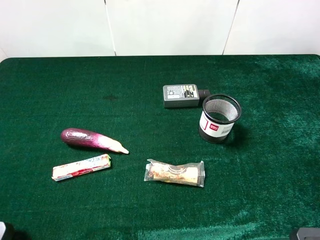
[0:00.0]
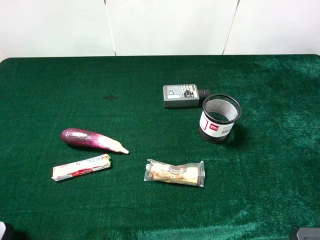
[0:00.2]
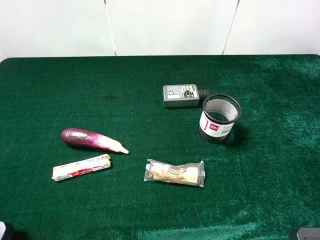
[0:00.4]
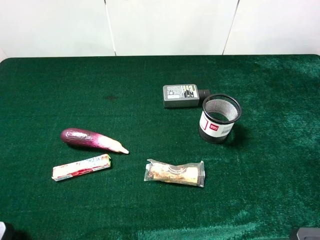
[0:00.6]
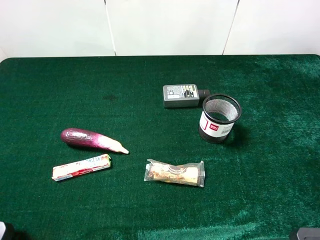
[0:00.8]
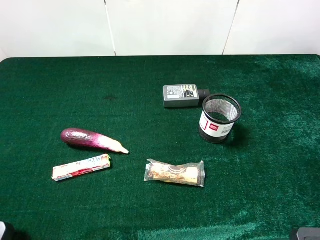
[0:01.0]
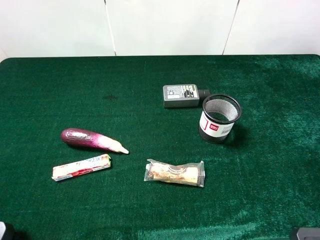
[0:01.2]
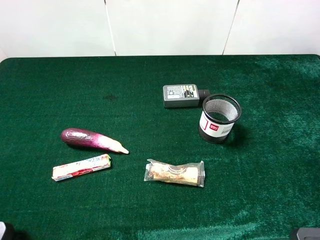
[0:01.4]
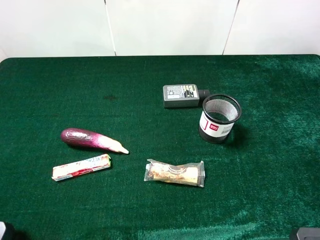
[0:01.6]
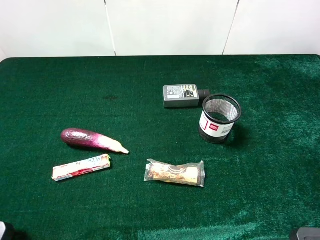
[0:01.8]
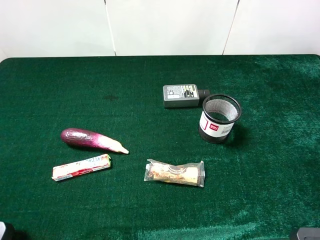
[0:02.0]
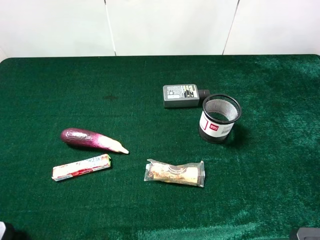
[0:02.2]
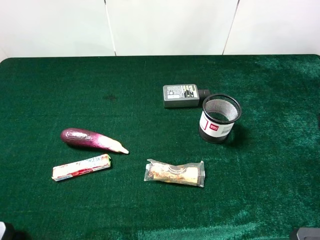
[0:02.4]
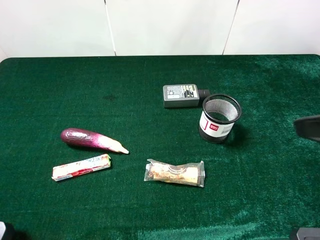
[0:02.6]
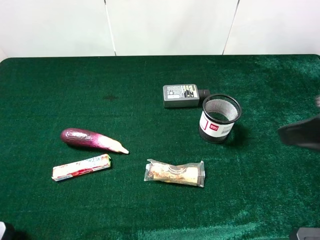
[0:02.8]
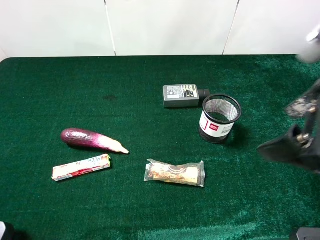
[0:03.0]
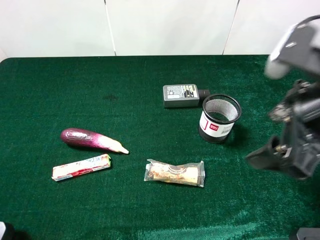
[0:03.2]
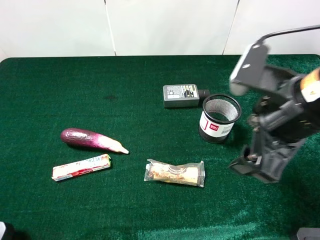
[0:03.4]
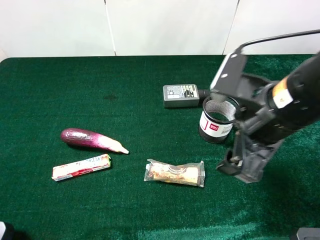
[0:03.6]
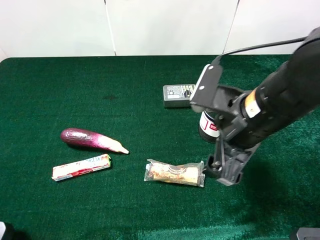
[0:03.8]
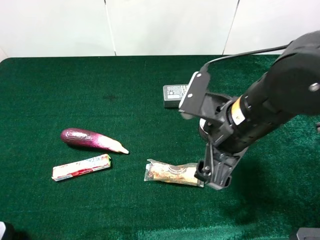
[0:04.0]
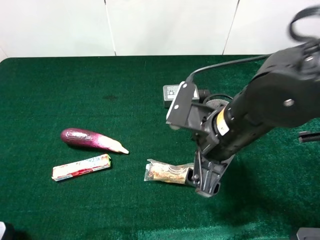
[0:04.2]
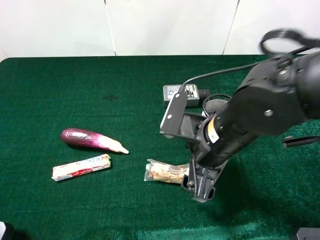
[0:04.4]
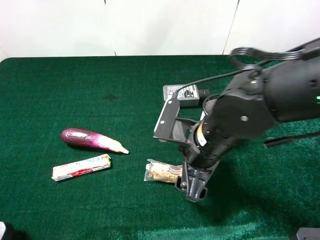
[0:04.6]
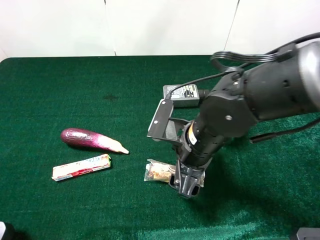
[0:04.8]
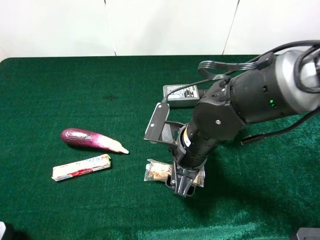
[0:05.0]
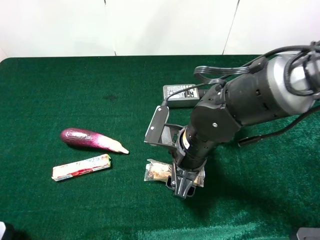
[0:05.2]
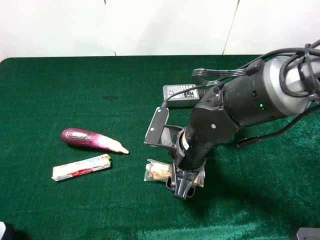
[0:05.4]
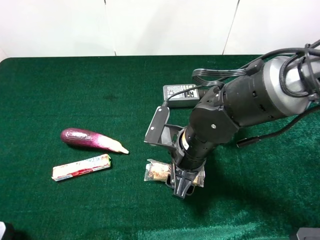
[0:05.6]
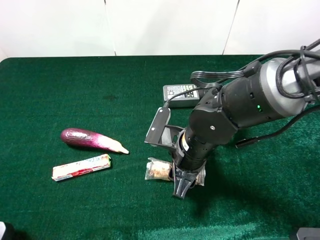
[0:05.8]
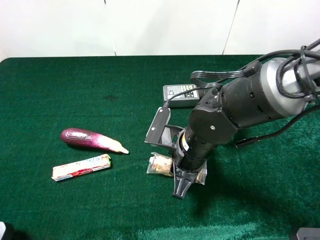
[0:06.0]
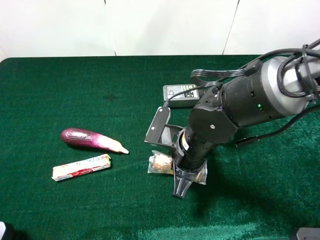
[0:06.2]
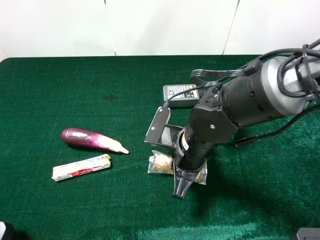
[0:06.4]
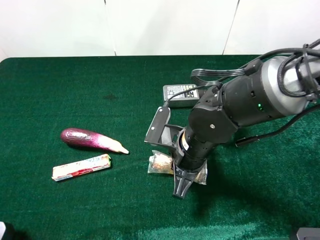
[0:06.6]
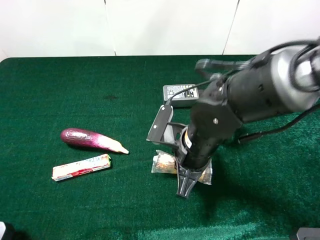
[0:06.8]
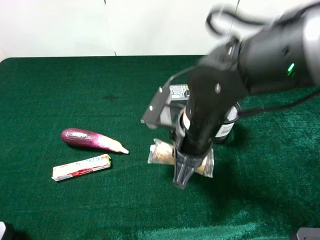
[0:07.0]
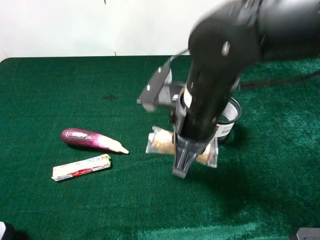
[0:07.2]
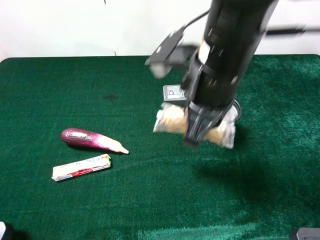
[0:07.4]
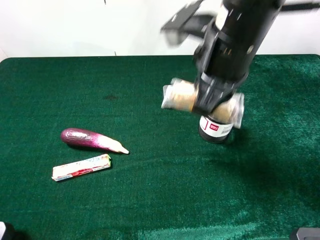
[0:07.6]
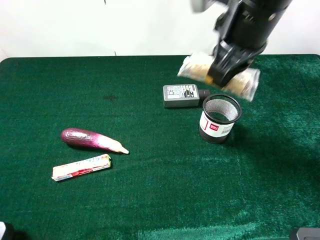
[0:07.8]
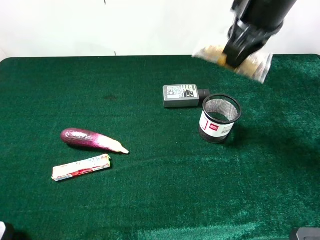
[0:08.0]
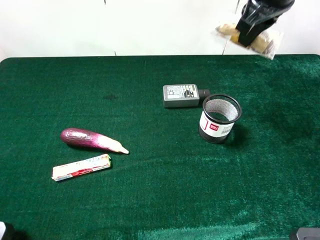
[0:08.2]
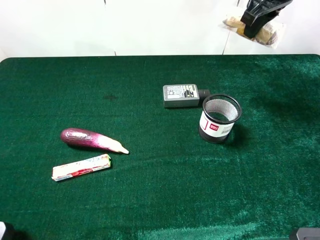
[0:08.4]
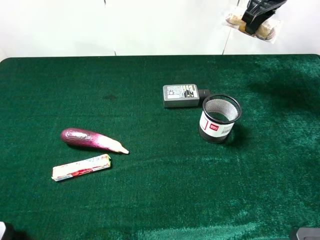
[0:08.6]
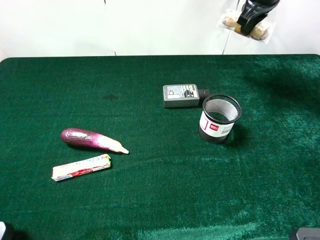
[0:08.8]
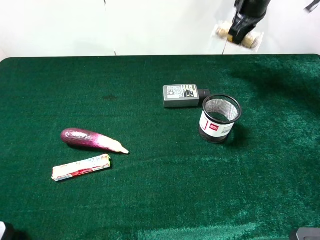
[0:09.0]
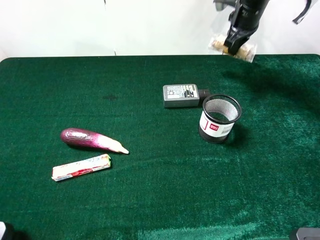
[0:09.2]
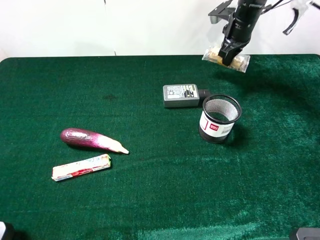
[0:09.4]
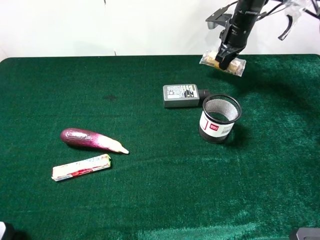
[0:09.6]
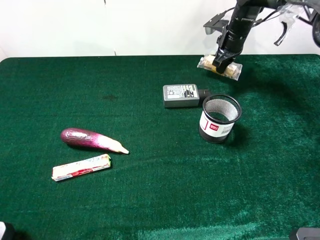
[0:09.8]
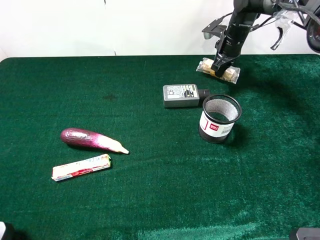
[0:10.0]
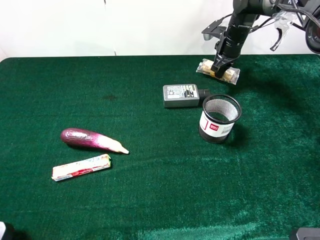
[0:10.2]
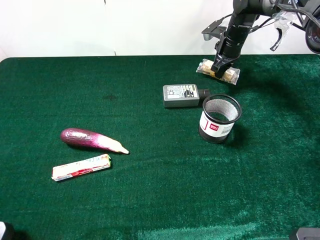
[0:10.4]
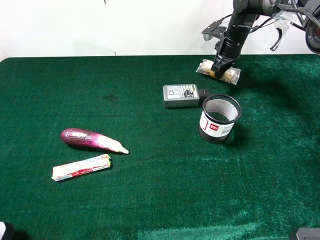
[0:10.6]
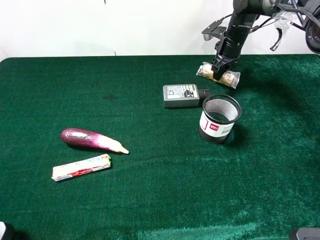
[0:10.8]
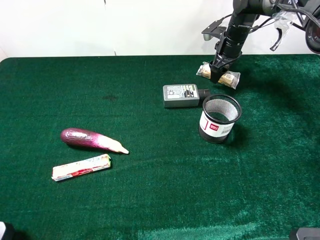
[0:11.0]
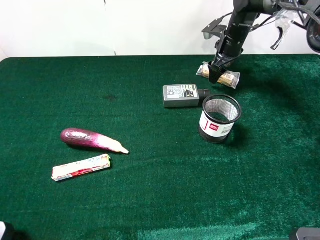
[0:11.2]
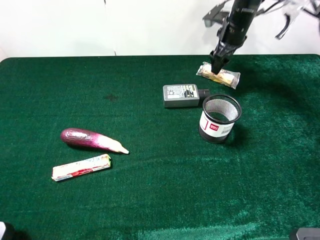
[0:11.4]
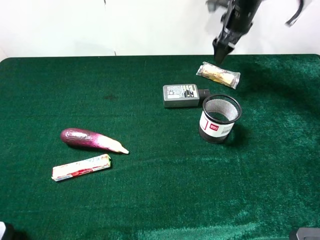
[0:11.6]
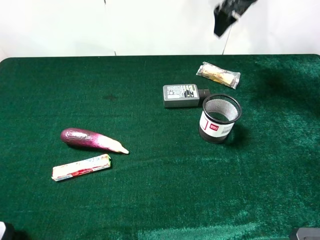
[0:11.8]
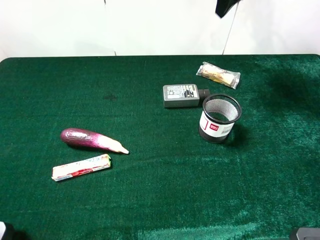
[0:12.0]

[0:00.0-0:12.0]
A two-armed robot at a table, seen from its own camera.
Task of the whole recording: the gripper move the object.
Step, 0:00.0 to 0:06.0: Grasp the chocolate with the right gripper.
Step, 0:06.2 to 0:10.8: Place the chocolate on the table with the right gripper.
0:00.0 to 0:01.6: Neither gripper changes place.
0:01.6 to 0:03.0: The right gripper moves forward and to the left, roughly 15 cm.
0:03.0 to 0:04.4: The right gripper moves downward and to the left, roughly 15 cm.
0:04.4 to 0:06.0: The right gripper moves downward, approximately 5 cm, and closes its fingers.
0:06.0 to 0:07.6: The right gripper moves upward, roughly 20 cm.
0:07.6 to 0:09.0: The right gripper travels forward and to the right by about 30 cm.
0:09.0 to 0:10.4: The right gripper travels downward by about 10 cm.
0:10.4 to 0:12.0: The right gripper shifts approximately 20 cm upward, and opens.

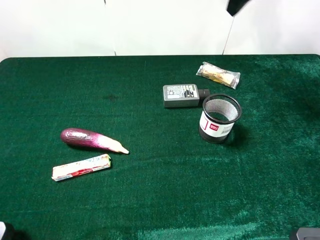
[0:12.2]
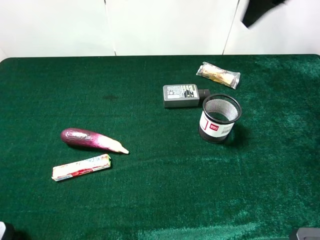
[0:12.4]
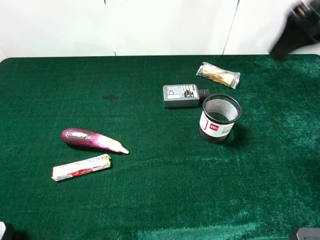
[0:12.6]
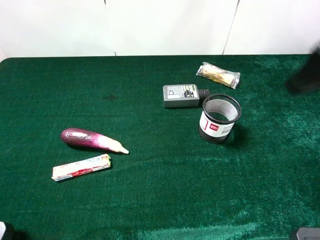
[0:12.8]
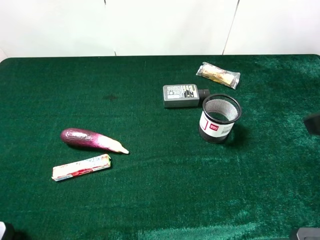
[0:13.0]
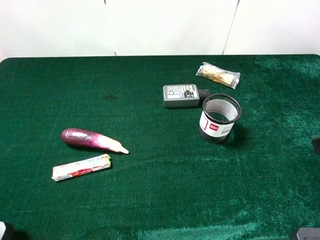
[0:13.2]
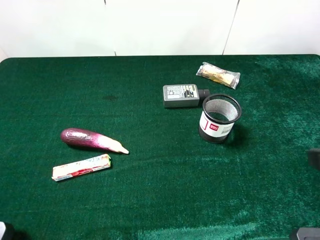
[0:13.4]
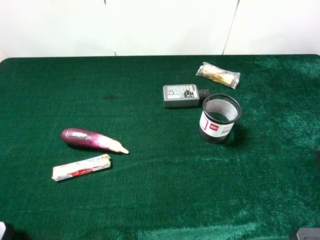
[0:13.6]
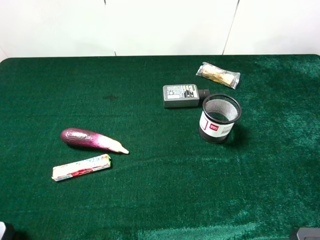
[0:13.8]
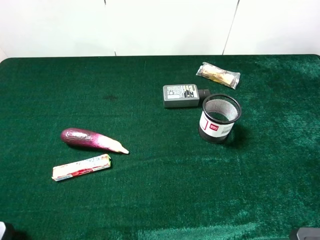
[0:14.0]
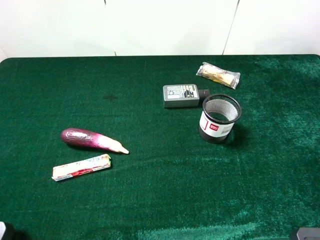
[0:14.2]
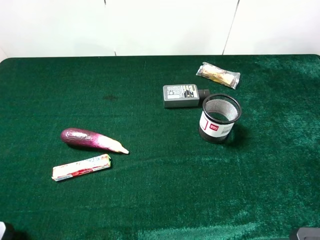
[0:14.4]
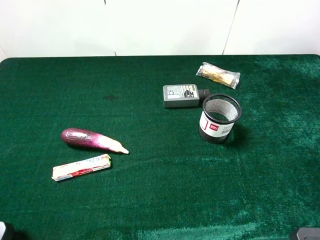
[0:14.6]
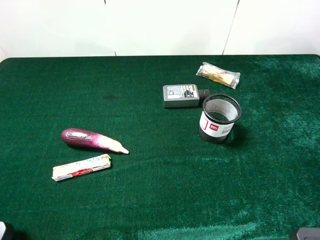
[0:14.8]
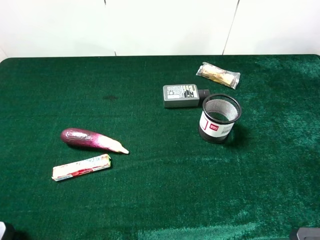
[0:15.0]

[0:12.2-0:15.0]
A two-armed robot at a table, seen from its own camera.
Task of the whole recording: the gripper move the object.
0:12.2 to 0:13.6: The right gripper goes about 30 cm backward.
